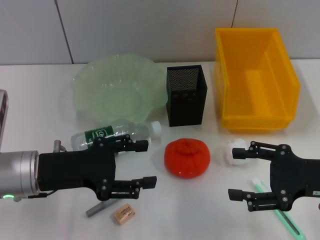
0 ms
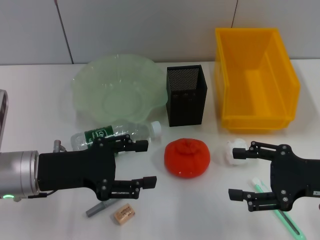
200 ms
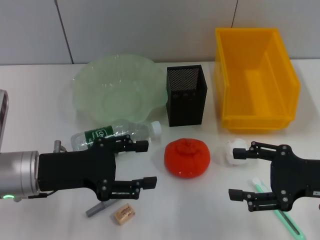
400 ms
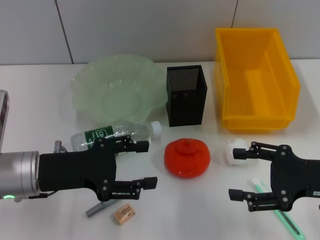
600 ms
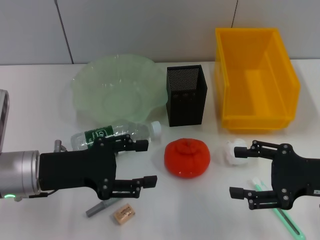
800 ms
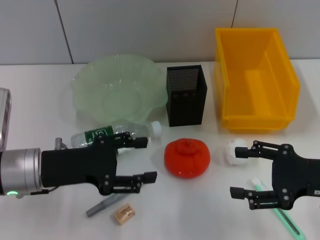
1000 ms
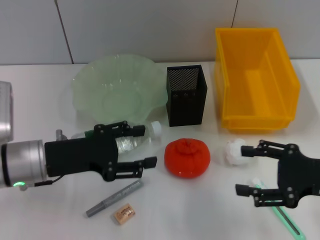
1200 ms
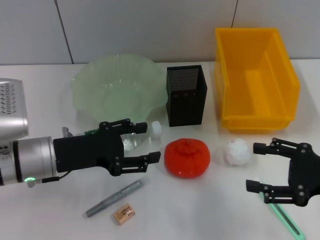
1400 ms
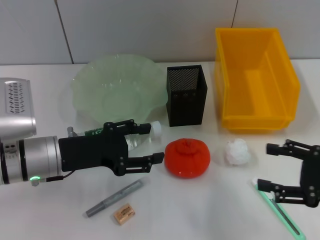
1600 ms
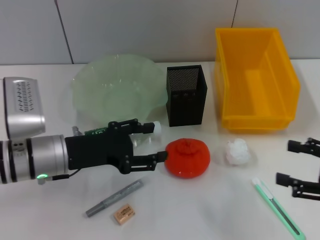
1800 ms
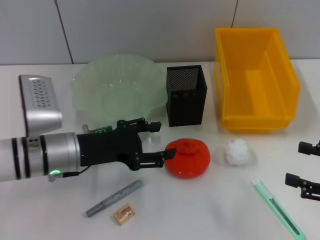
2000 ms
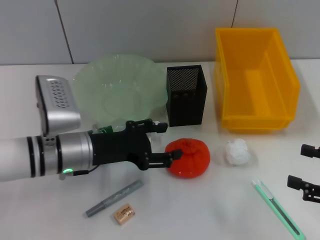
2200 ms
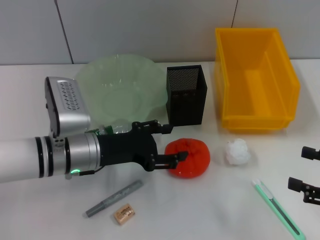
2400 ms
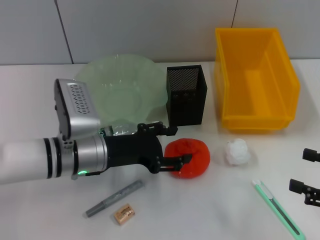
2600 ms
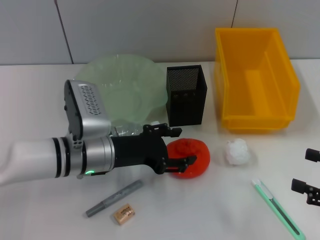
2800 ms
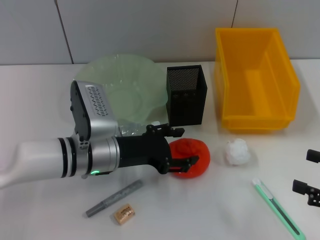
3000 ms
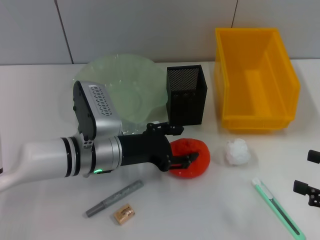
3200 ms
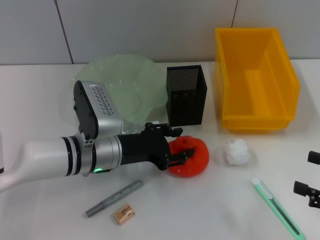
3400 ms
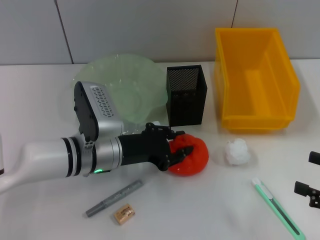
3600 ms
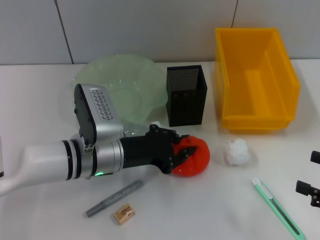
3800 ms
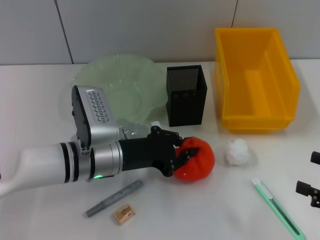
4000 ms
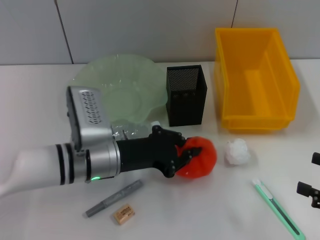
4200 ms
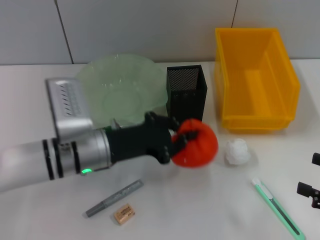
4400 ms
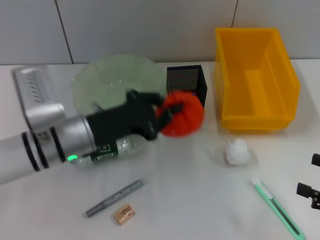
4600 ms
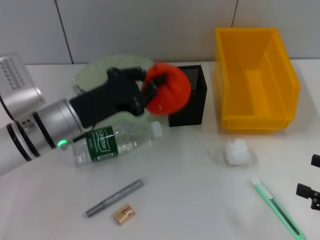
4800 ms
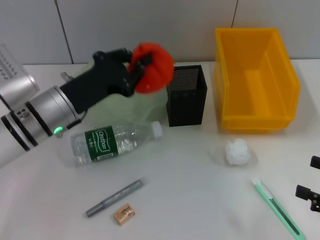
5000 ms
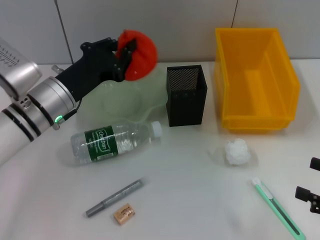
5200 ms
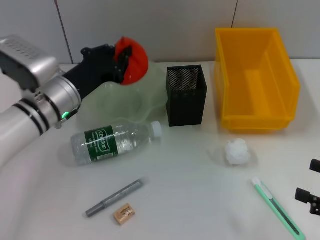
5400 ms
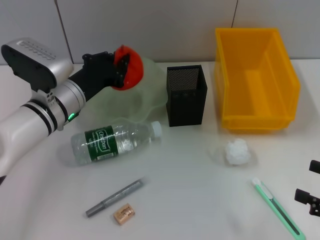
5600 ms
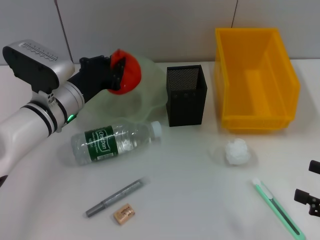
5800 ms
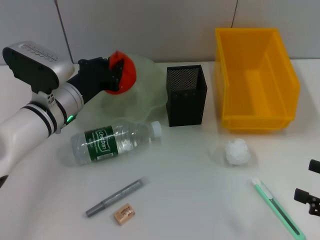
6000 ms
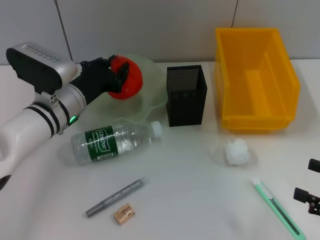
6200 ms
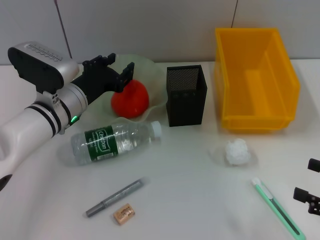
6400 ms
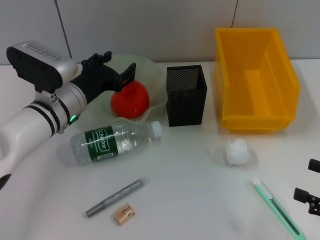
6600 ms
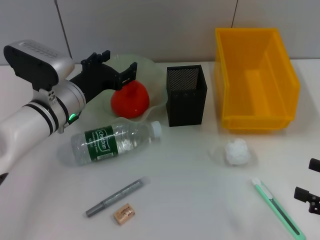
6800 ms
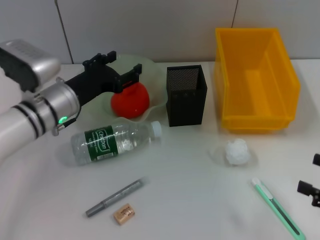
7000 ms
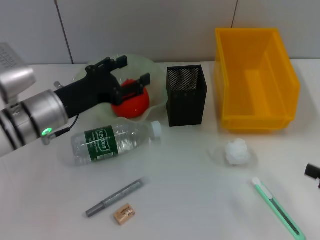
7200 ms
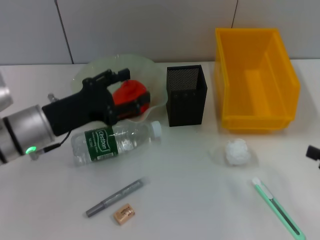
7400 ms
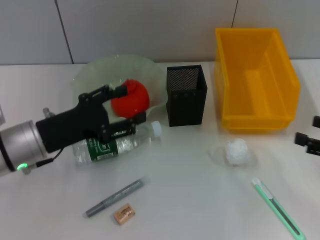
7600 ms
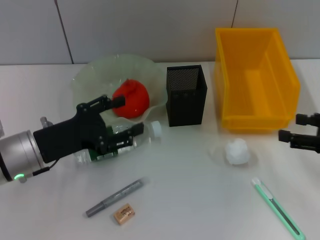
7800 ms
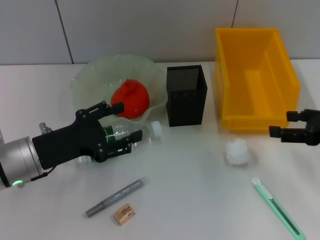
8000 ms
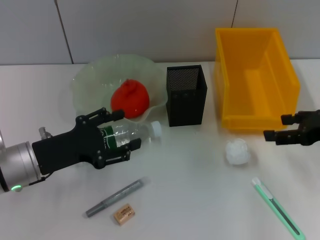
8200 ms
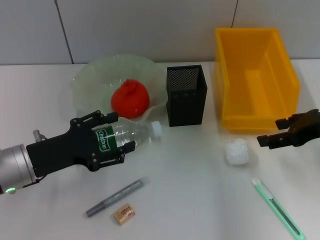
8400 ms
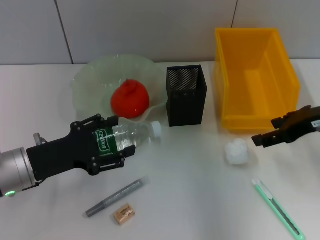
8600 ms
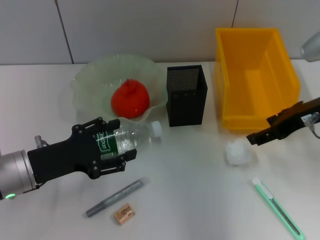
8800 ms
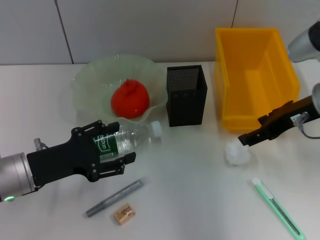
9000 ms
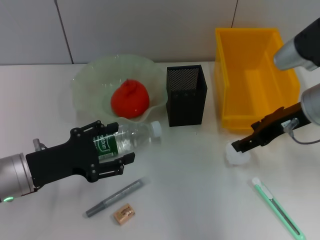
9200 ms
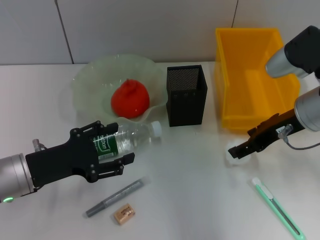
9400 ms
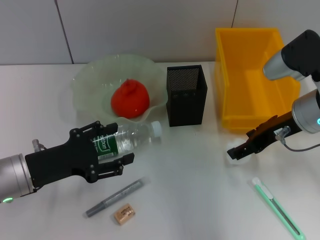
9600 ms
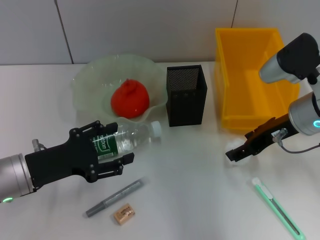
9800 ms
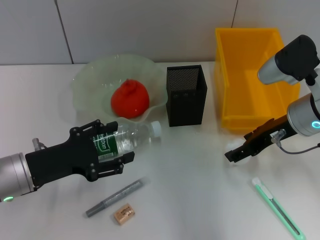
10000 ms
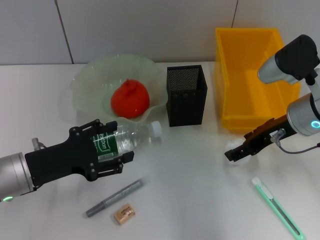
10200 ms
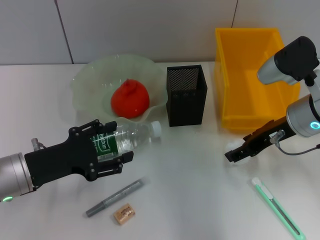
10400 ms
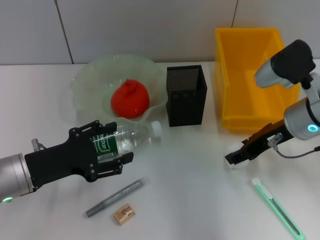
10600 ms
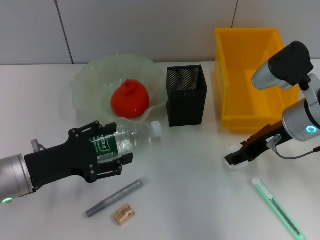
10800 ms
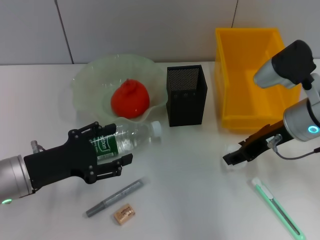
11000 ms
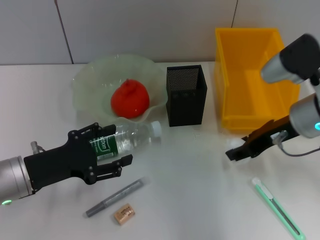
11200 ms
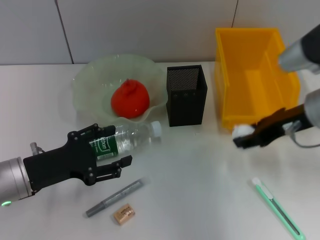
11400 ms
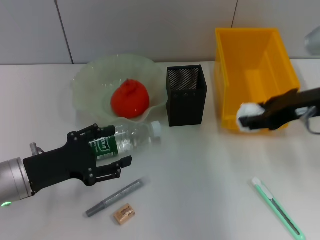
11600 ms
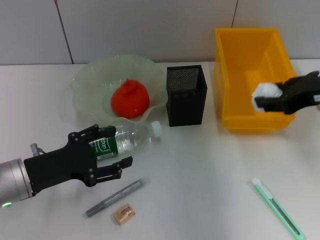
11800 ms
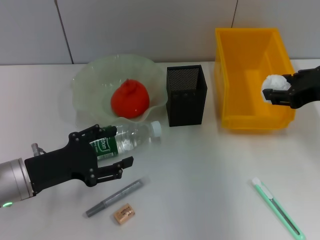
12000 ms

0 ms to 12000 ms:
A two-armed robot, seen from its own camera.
Step, 0 ms to 4000 ms: Grab the orange with the left hand.
Step, 4200 ms to 6400 ms: Place the orange into the fruit bowl with the left hand.
Step, 6600 ms to 10800 ms: Grab the paper ball with the right hand.
0 ms to 1600 ms: The grippers make only small movements.
1600 ms to 3000 ms: The right gripper moves approximately 5 cm, while the left gripper shifts some 10 cm to the right.
3000 ms to 4400 ms: The left gripper closes.
4400 ms to 6000 ms: The left gripper heads forward, covering some 5 cm.
6000 ms to 7600 ms: The left gripper heads backward, covering roughly 10 cm, and opens up; the right gripper travels forward by approximately 5 cm.
7600 ms to 9000 ms: The right gripper heads to the left, forward and upward, covering about 20 cm.
9000 ms to 10400 ms: The grippers make only small movements.
10400 ms to 12000 ms: The right gripper is displaced upward by about 5 cm, and closes up.

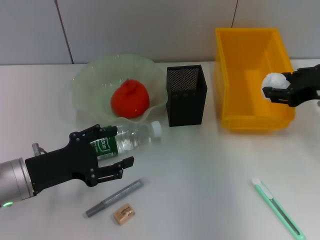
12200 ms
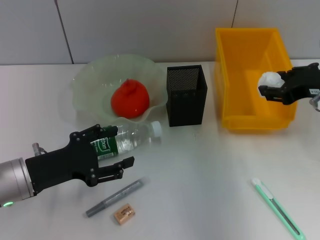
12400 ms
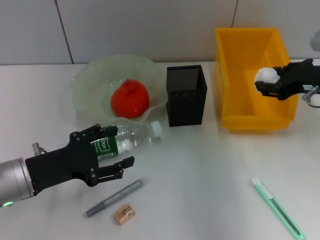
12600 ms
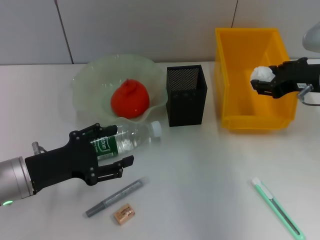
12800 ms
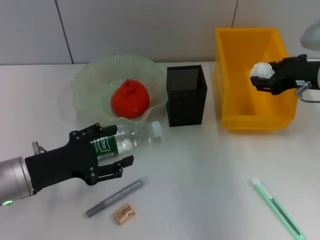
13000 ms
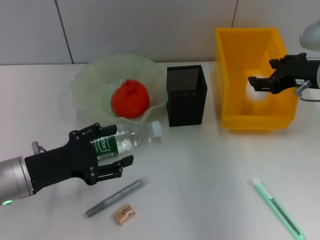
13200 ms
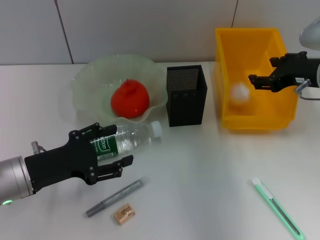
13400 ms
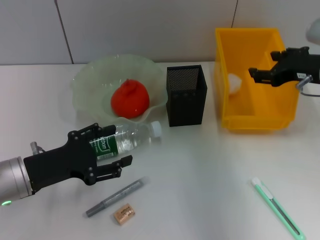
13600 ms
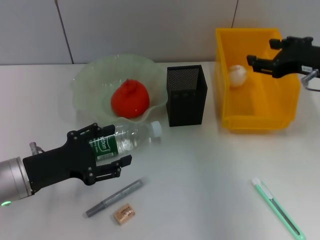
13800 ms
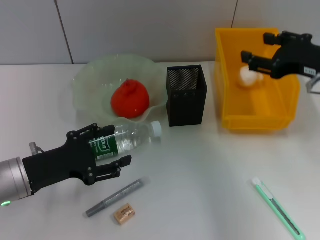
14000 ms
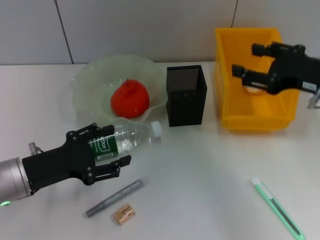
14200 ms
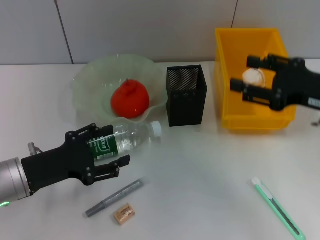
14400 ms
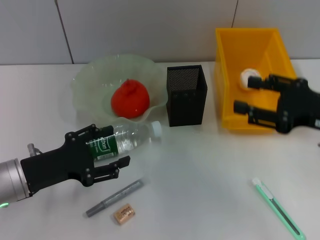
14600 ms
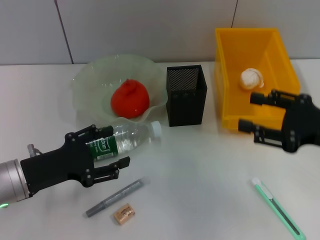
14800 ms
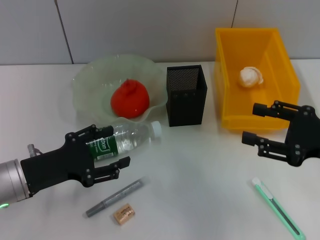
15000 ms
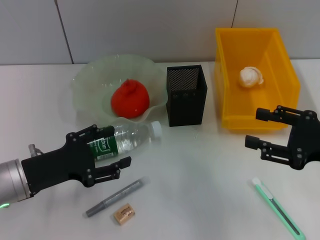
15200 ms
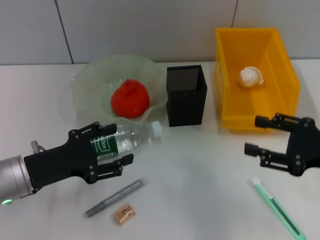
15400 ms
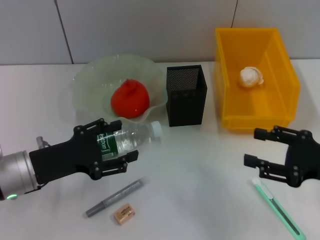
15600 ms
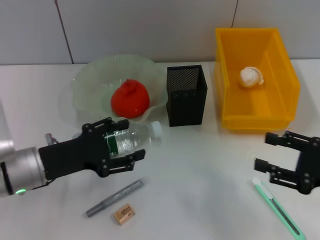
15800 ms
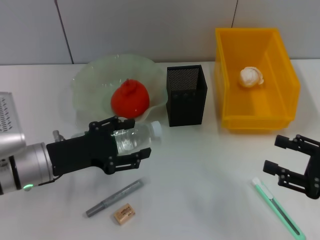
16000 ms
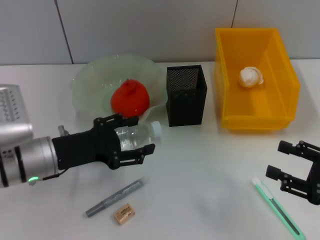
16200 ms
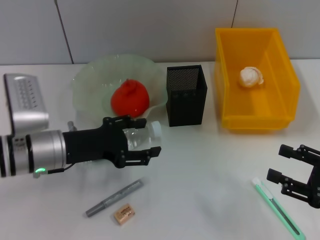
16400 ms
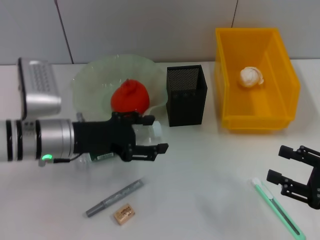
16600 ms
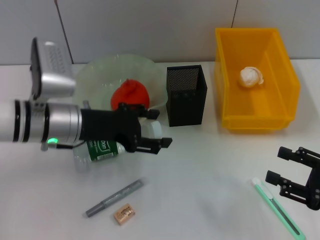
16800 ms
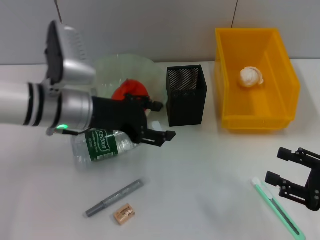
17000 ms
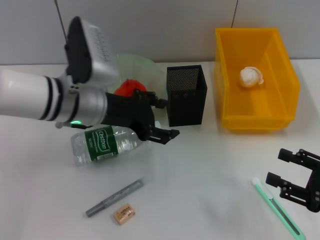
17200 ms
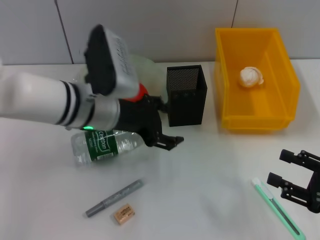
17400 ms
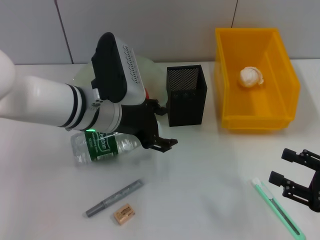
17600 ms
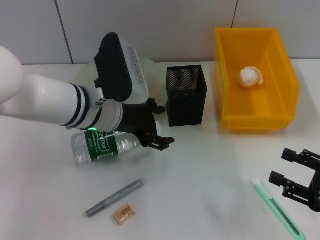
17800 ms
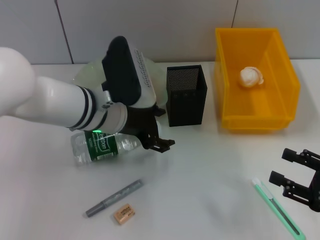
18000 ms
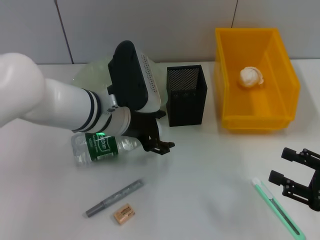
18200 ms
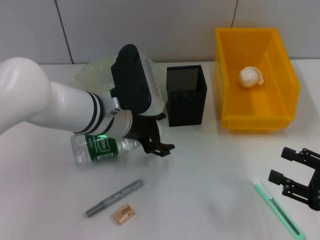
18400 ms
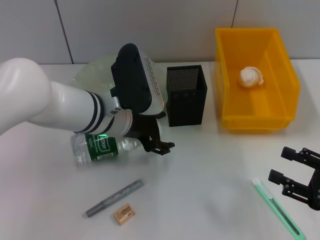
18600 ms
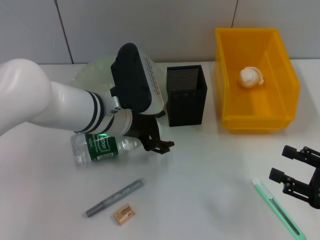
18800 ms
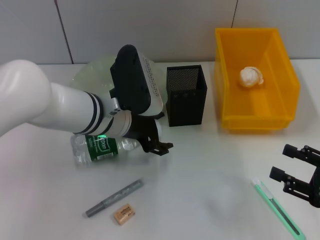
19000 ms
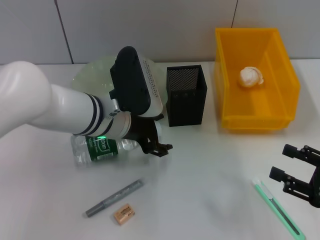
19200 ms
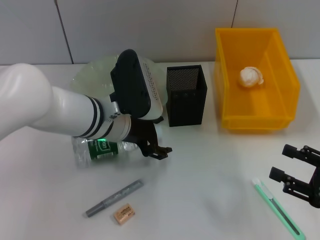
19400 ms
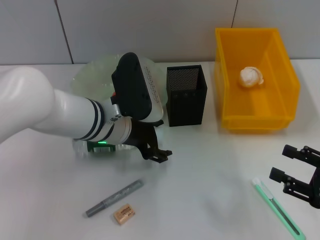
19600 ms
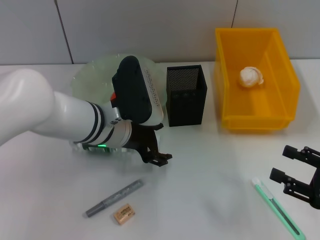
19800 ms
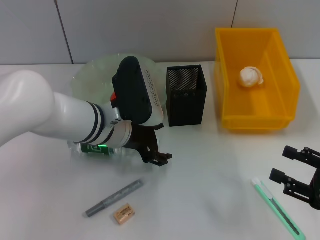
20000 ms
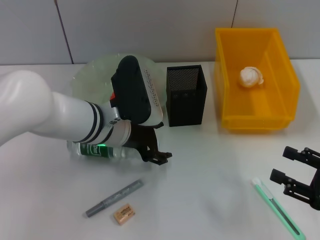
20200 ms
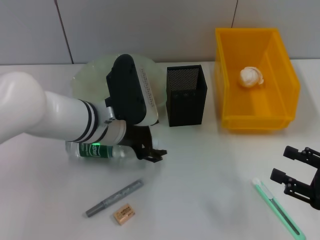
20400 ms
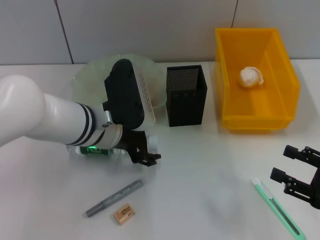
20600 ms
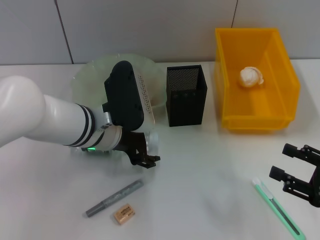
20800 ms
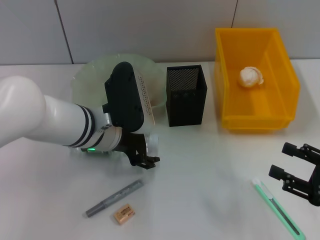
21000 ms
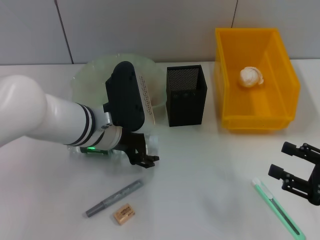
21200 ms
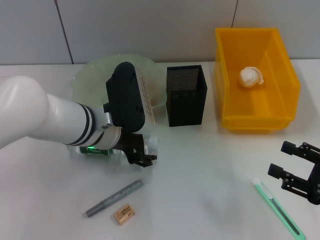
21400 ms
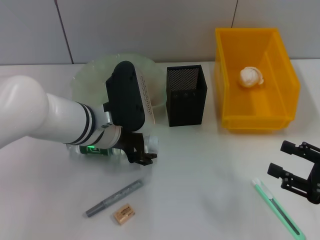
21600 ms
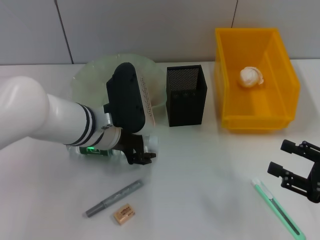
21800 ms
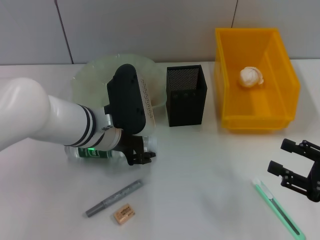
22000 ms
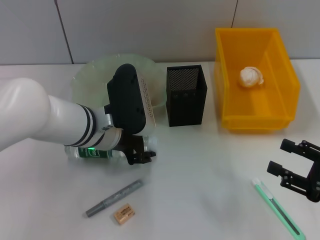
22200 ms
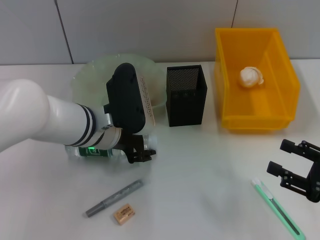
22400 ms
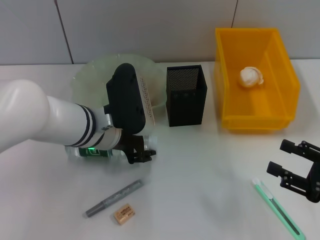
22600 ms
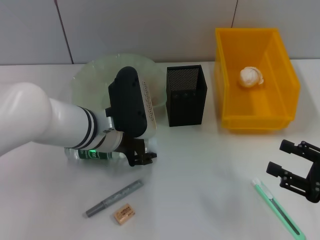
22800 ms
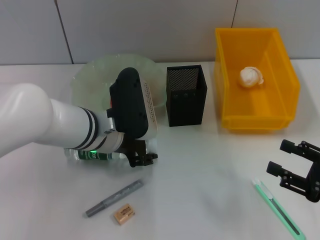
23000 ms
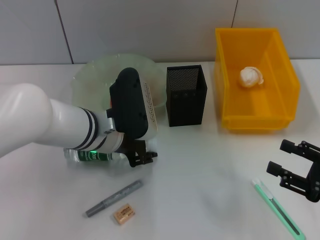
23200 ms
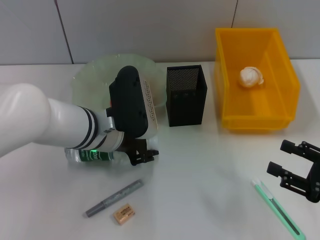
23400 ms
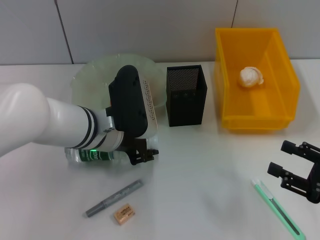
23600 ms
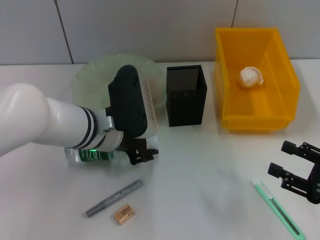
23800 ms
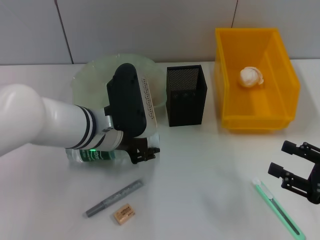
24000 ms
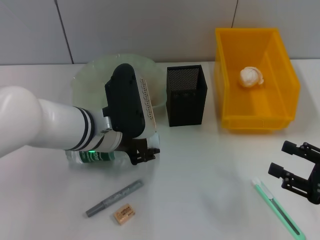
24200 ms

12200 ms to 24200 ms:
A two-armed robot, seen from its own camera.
Step, 12200 ms to 13800 ms: Place the paper ball into the trash can with the right hand.
Step, 14000 ms to 24000 ms: Grab the water bottle with the left hand.
12200 ms to 13800 ms: The grippers make only small movements.
13800 ms to 15200 ms: The right gripper goes about 10 cm backward and downward.
15200 ms to 16600 ms: The right gripper shifts roughly 5 cm downward. The left gripper is displaced forward and to the right by approximately 10 cm.
16600 ms to 18200 ms: The left gripper is displaced to the right by some 10 cm.
18200 ms to 21200 ms: The grippers move only a little.
21200 ms to 22600 ms: The left gripper closes its fingers.
22600 ms to 24200 ms: Neither gripper changes place.
